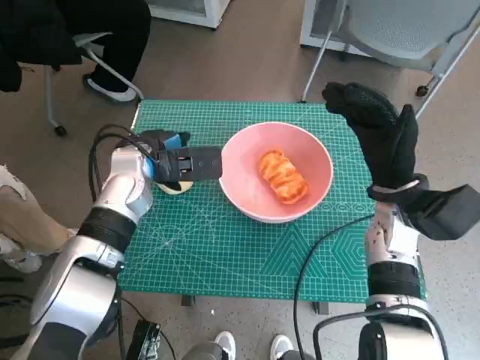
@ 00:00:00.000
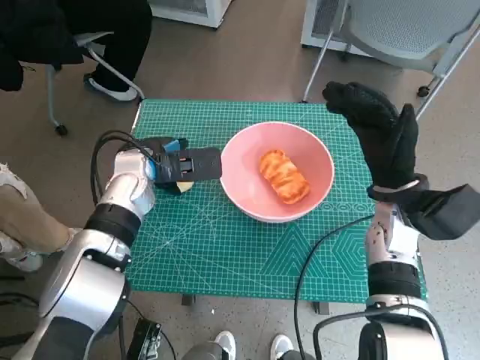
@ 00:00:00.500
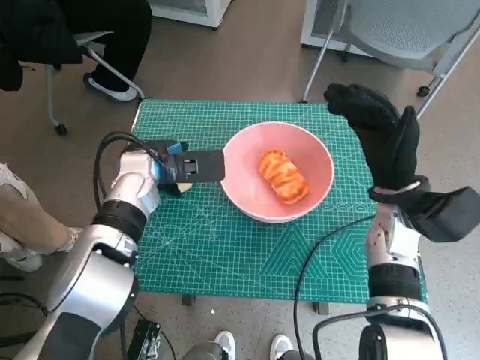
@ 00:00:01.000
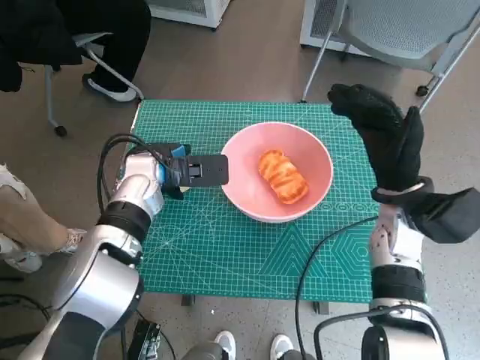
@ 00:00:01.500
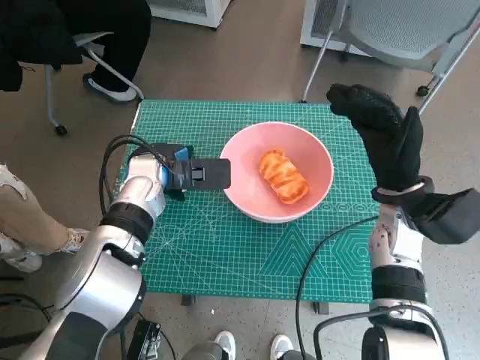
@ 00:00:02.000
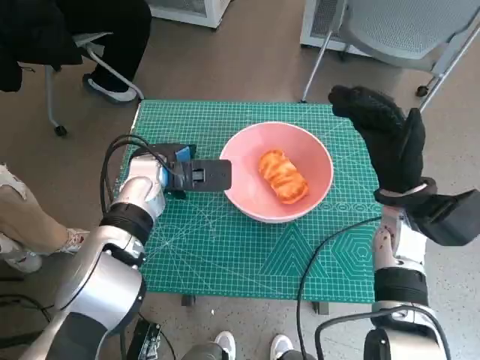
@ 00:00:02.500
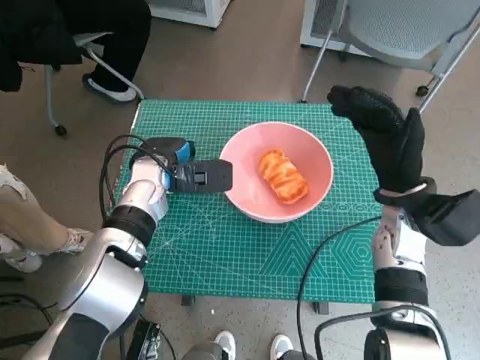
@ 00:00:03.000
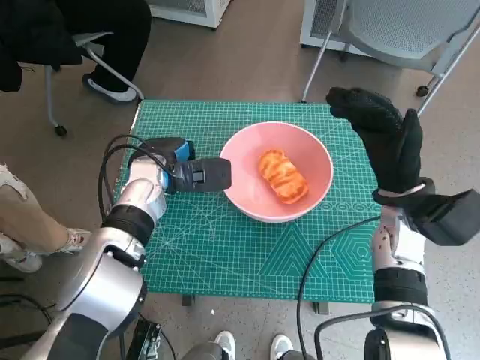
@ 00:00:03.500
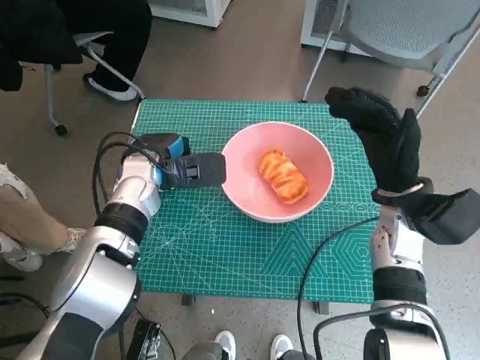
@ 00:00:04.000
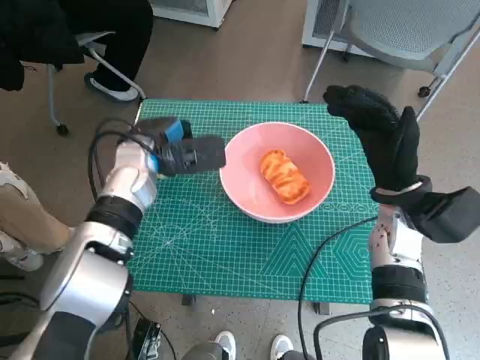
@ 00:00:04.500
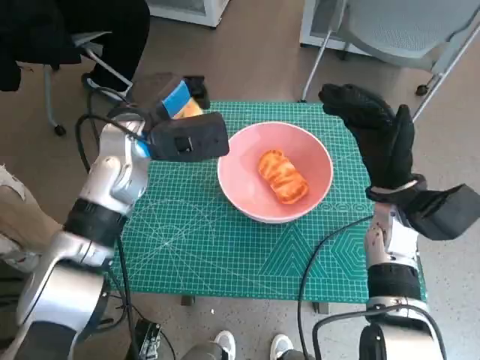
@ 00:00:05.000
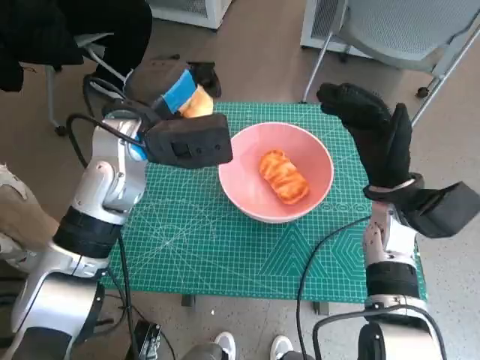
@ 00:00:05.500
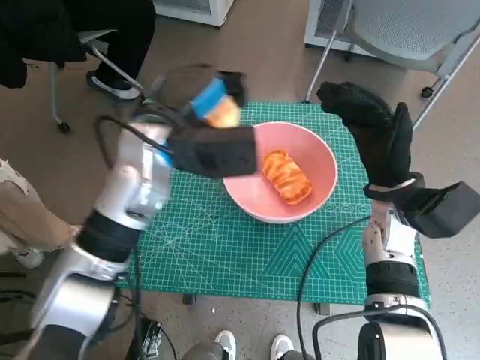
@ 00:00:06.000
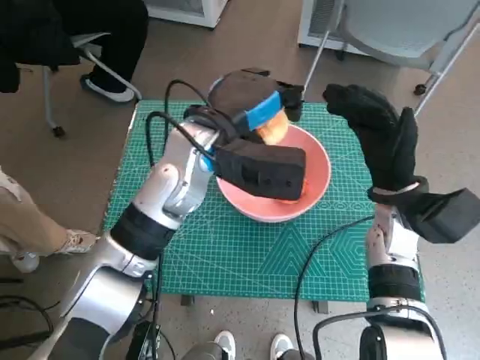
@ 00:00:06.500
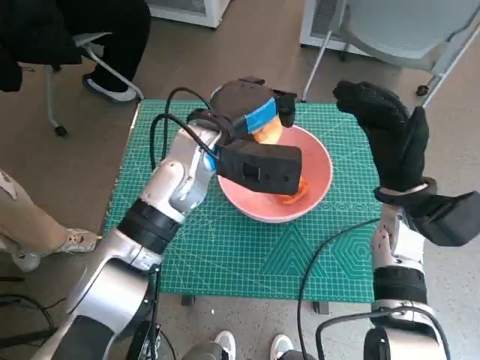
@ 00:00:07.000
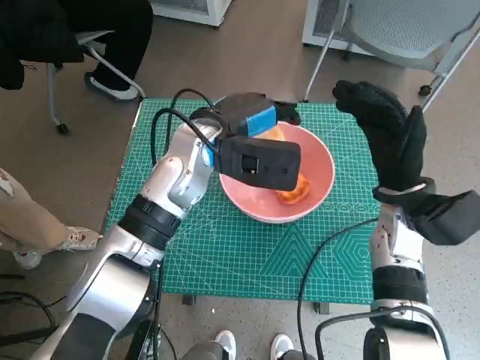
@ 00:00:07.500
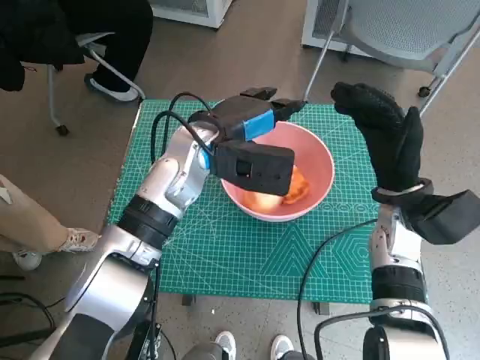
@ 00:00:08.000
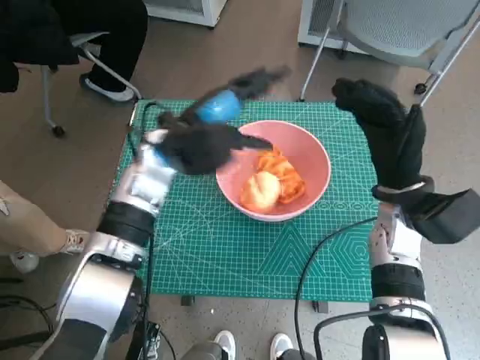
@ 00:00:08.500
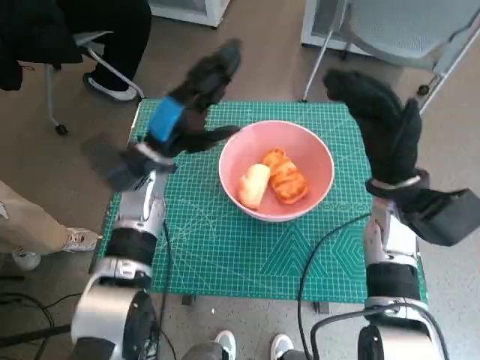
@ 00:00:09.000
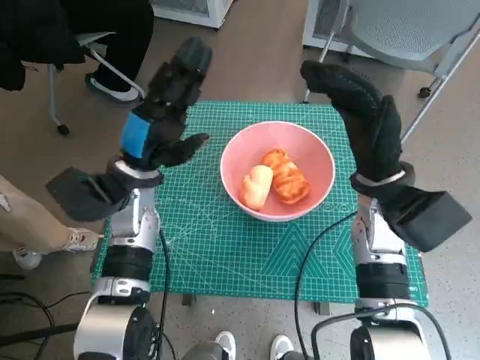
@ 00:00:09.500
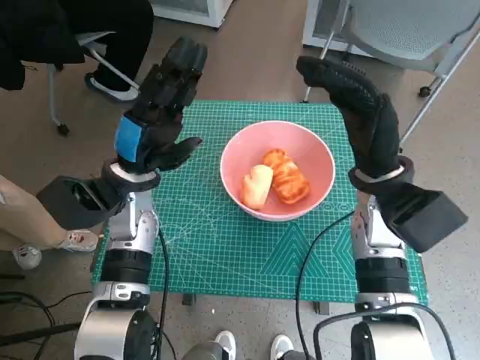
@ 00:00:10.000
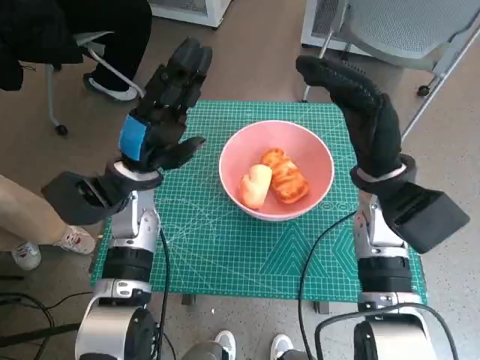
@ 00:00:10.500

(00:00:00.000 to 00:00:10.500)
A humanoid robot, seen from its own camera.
Step, 00:00:00.000 - 00:00:03.000: Grasp the round bread with left hand.
Step, 00:00:03.500 - 00:00:08.000: Place the round bread in pink bowl with left hand.
00:00:00.000 - 00:00:04.000: There are only small adjustments of the hands.
00:00:04.000 - 00:00:06.500: The left hand is displaced upward and to the right by roughly 15 cm.
00:00:06.500 - 00:00:08.500: The left hand ends up about 5 cm from where it was.
00:00:08.500 - 00:00:10.500: The right hand moves approximately 5 cm, while the left hand travels to the left by approximately 5 cm.

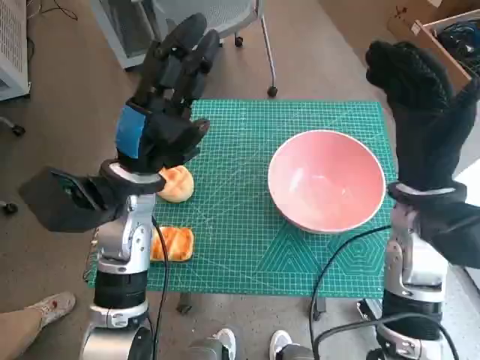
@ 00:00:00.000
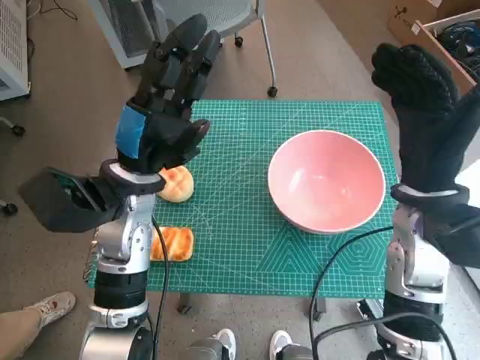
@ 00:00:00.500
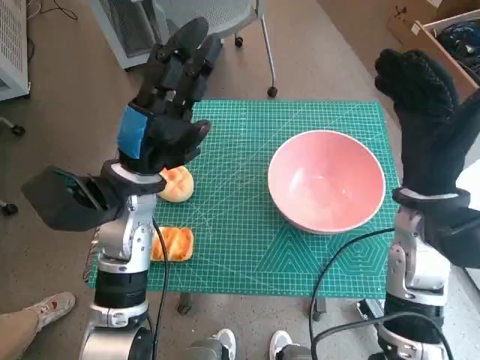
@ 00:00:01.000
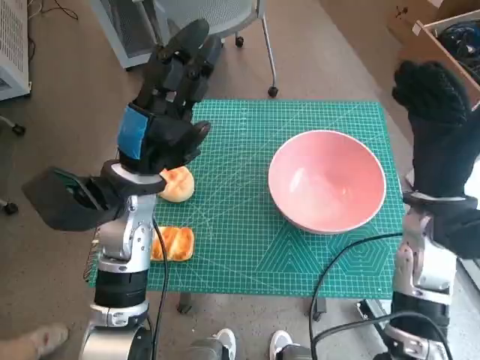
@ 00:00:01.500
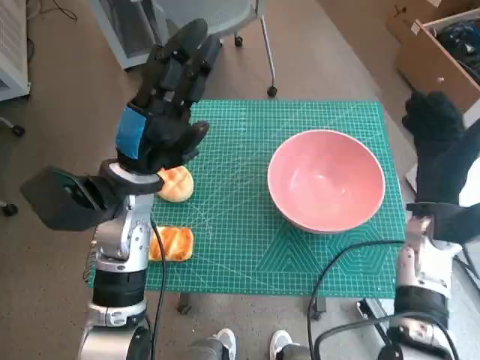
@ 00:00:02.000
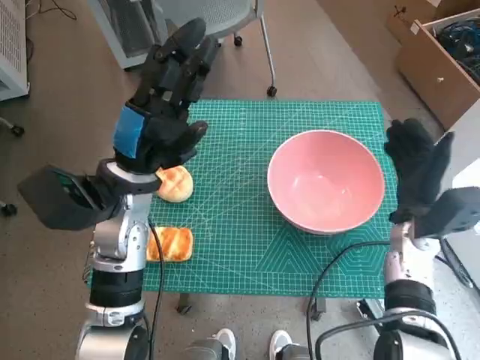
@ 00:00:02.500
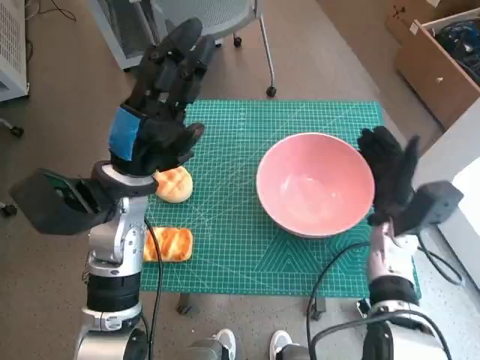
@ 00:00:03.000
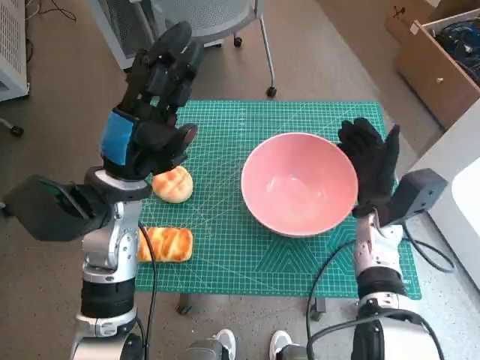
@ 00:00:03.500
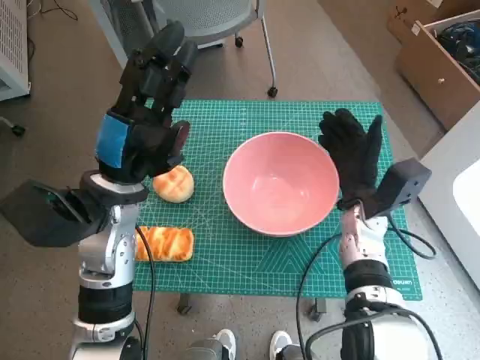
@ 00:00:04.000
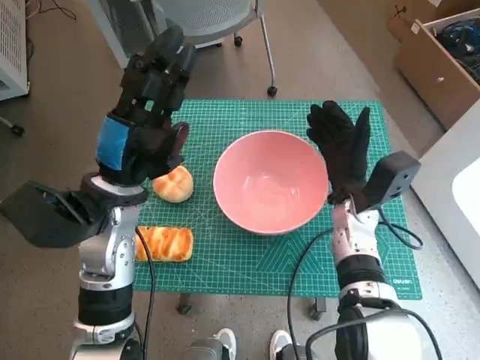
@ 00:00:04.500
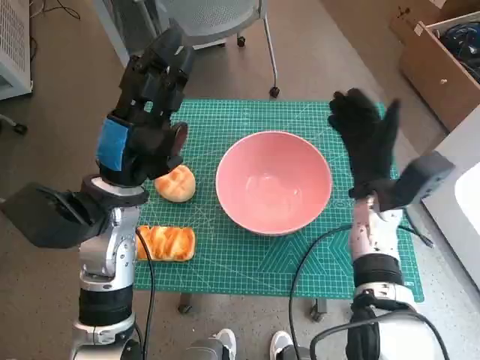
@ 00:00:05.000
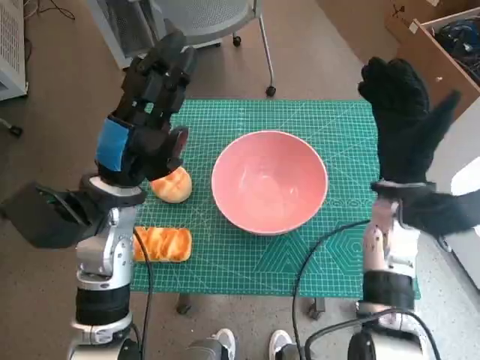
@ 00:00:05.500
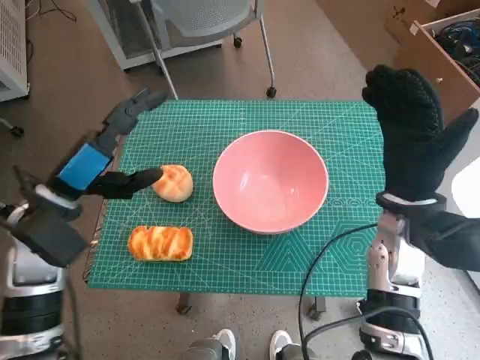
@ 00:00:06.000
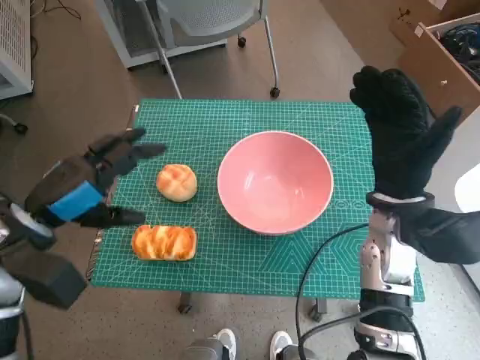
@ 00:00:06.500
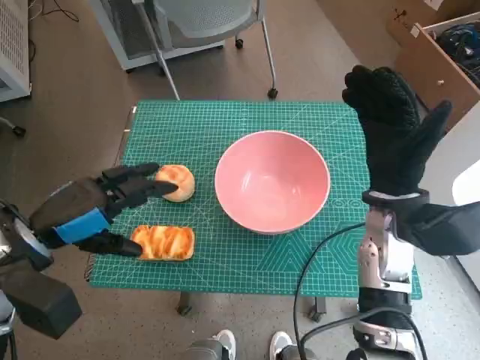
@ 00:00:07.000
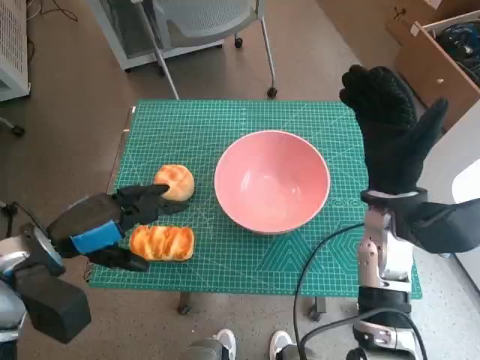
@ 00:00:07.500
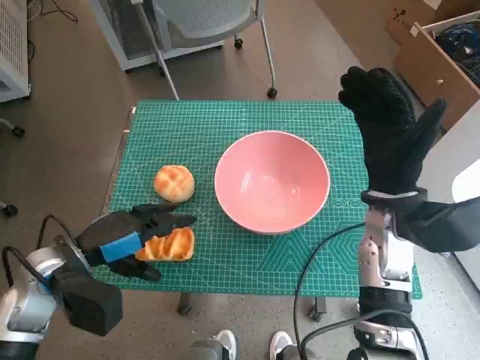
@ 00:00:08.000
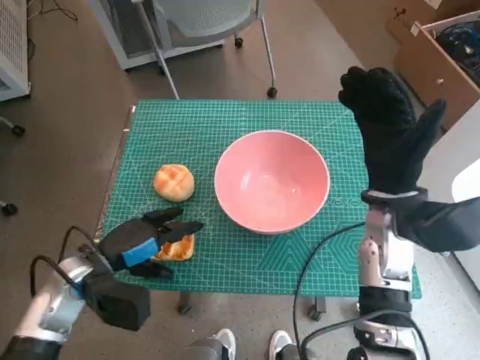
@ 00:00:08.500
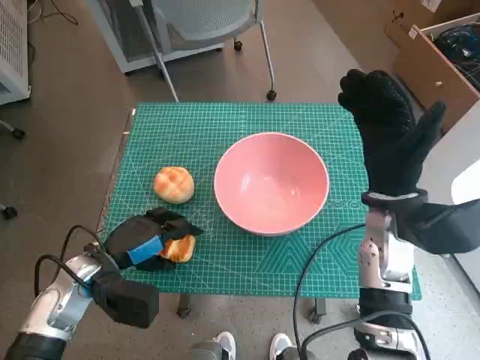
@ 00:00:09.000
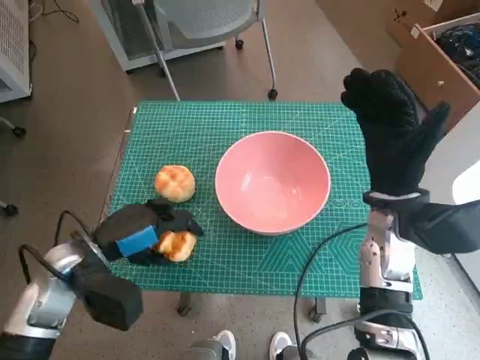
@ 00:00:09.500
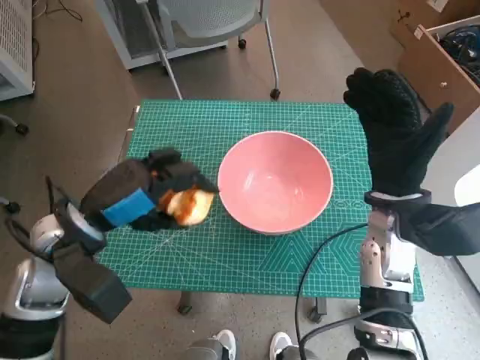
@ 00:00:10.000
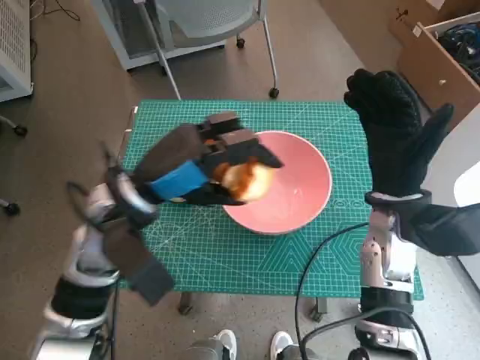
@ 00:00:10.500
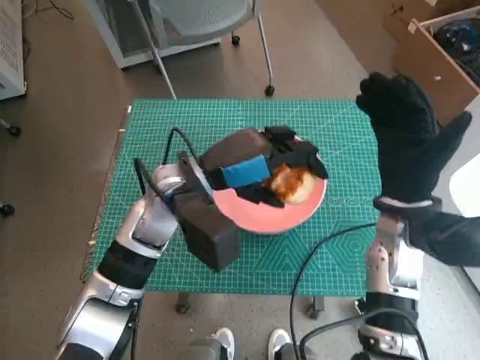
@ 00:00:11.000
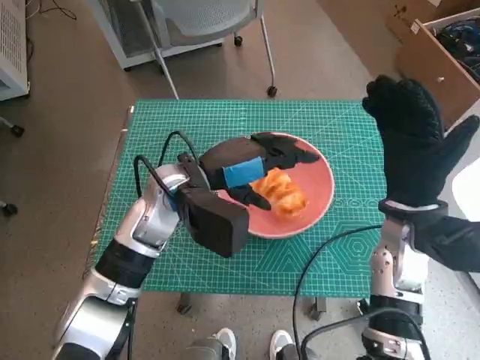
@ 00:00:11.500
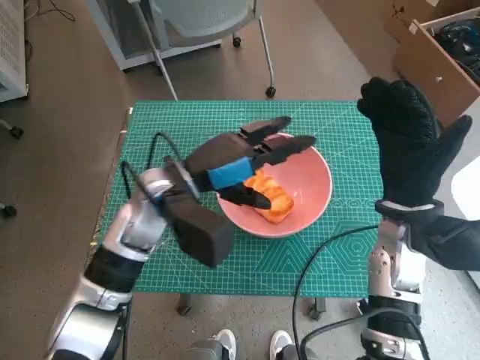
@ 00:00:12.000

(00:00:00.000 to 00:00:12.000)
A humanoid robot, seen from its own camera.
Step, 00:00:00.000 - 00:00:04.500: Move the pink bowl to the center of table with right hand.
Step, 00:00:05.000 - 00:00:08.500: Grasp the long bread with left hand.
Step, 00:00:09.000 - 00:00:11.500: Place the long bread in pink bowl with left hand.
00:00:02.000 - 00:00:04.000: The right hand heads to the left, covering approximately 5 cm.
00:00:04.000 - 00:00:06.000: The right hand is displaced upward by some 10 cm; the left hand is displaced to the left by roughly 10 cm.
00:00:06.000 - 00:00:08.000: The left hand shifts some 5 cm downward.
00:00:08.000 - 00:00:10.000: The left hand travels upward by approximately 5 cm.
00:00:10.000 - 00:00:12.000: The left hand shifts some 15 cm to the right and forward.

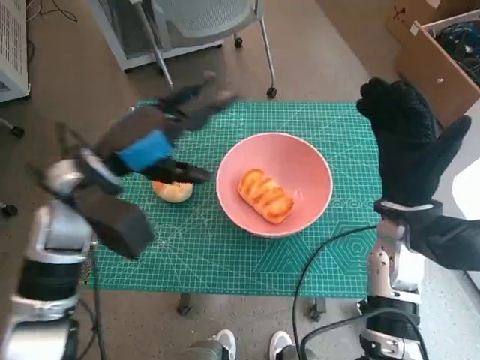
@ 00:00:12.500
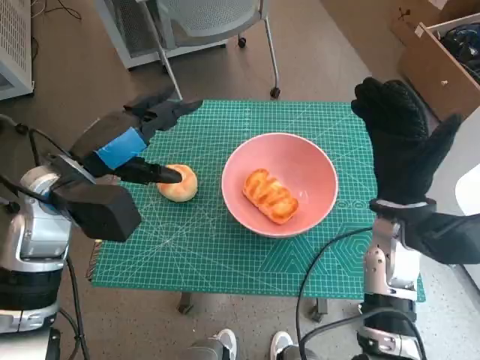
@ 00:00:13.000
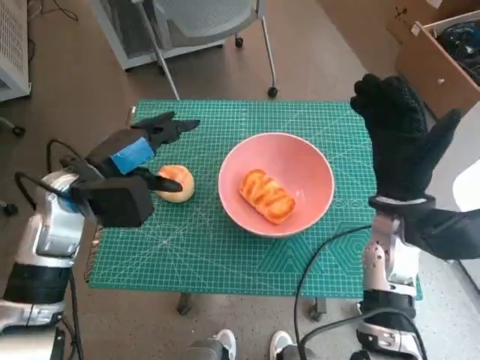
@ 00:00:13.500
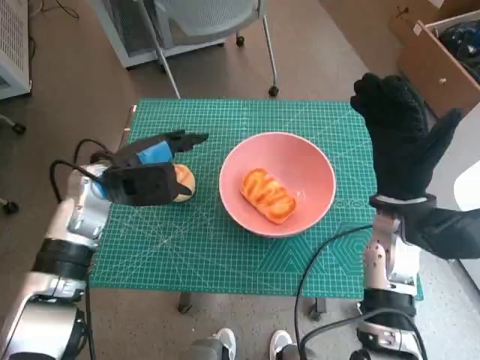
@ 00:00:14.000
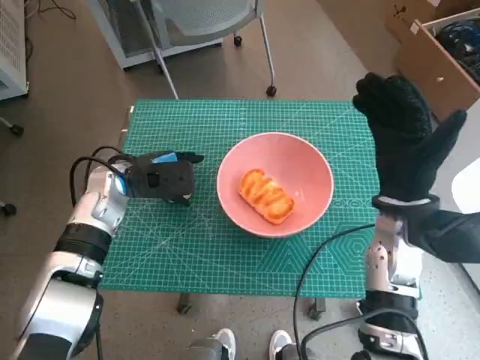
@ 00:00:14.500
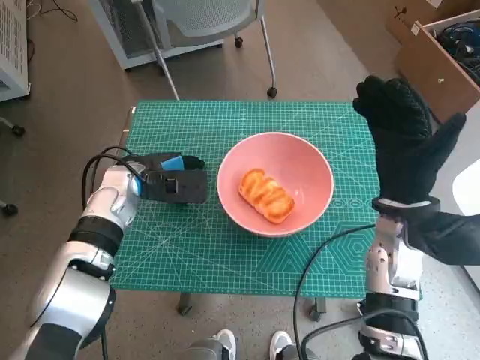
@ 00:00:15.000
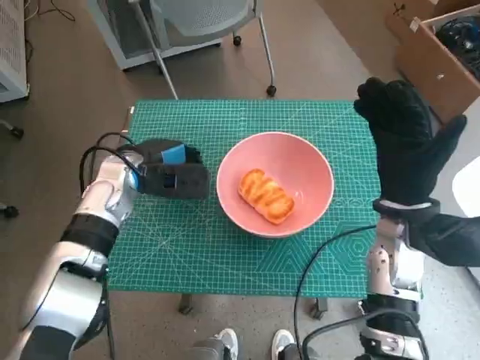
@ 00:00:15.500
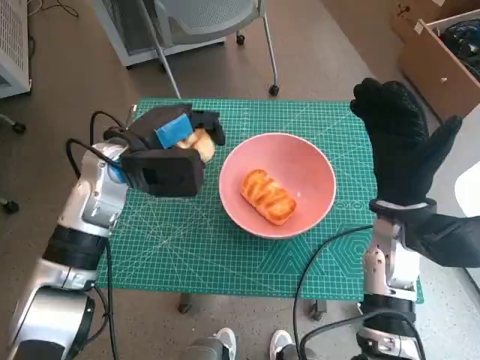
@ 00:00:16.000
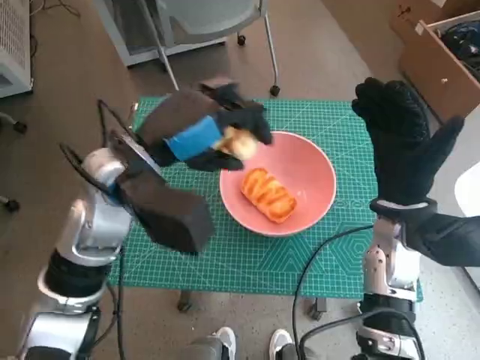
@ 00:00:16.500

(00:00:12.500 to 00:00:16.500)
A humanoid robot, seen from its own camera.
Step, 00:00:12.500 - 00:00:15.000: Grasp the round bread with left hand.
00:00:12.500 - 00:00:14.500: The left hand goes about 10 cm downward and forward.
00:00:14.500 - 00:00:16.500: The left hand shifts about 15 cm upward, to the right and backward.
